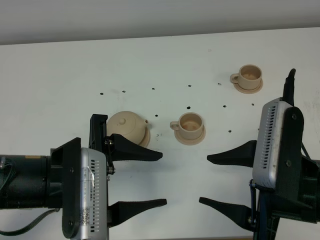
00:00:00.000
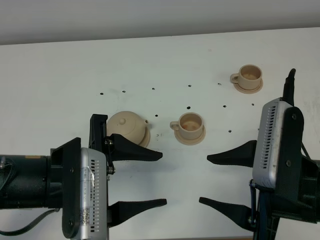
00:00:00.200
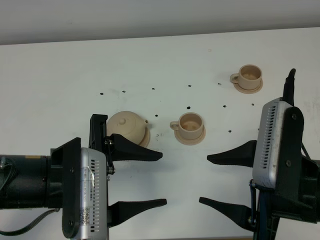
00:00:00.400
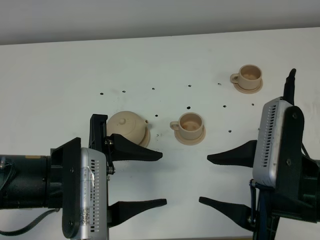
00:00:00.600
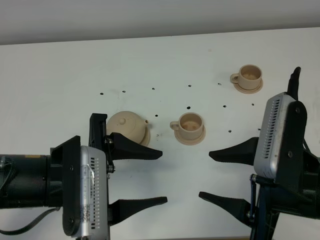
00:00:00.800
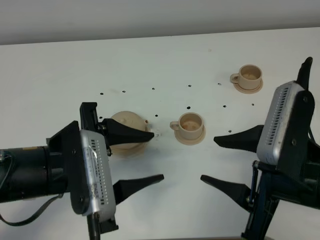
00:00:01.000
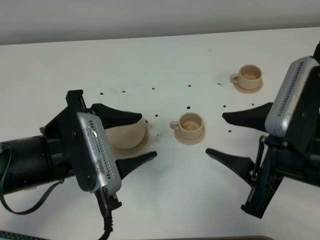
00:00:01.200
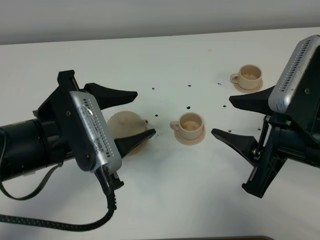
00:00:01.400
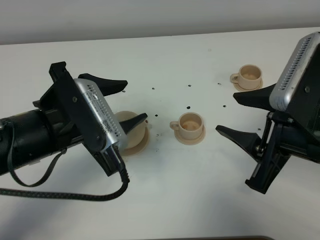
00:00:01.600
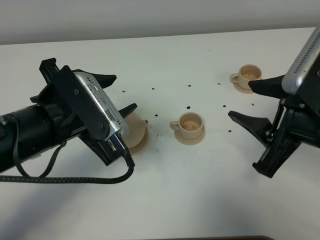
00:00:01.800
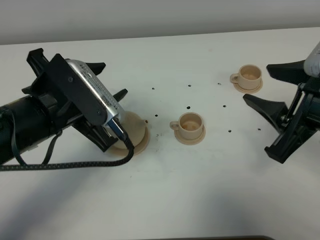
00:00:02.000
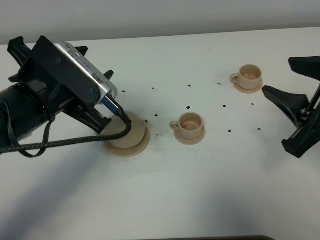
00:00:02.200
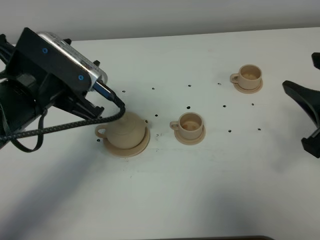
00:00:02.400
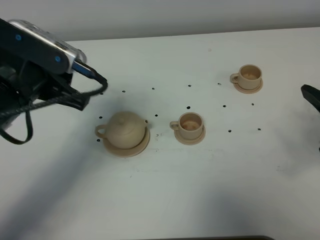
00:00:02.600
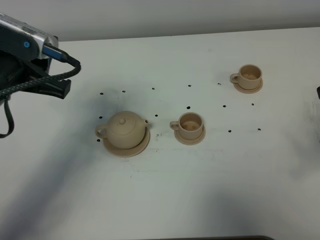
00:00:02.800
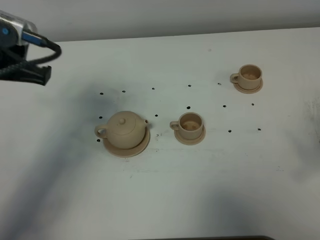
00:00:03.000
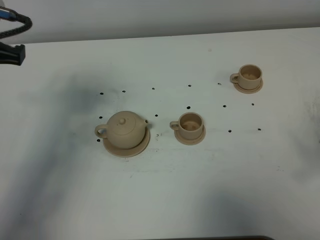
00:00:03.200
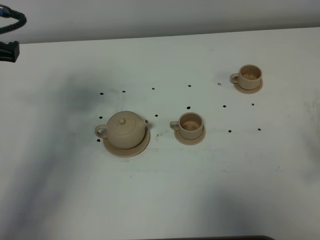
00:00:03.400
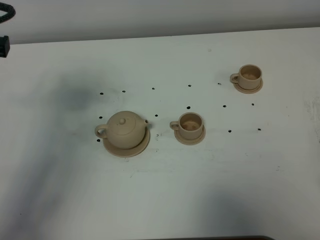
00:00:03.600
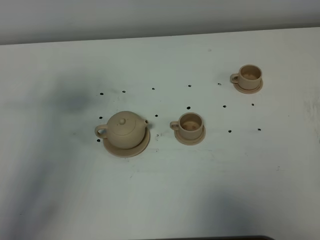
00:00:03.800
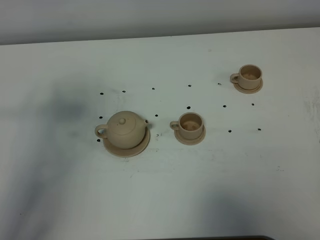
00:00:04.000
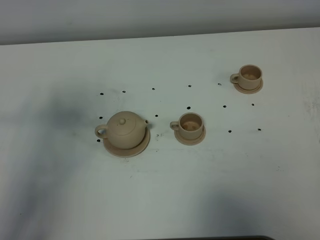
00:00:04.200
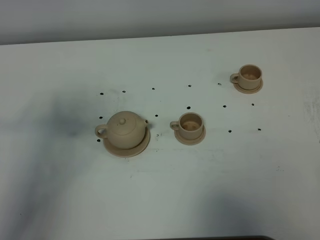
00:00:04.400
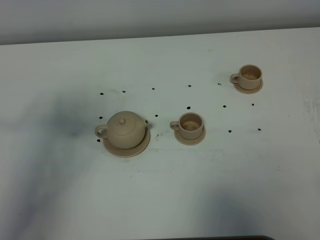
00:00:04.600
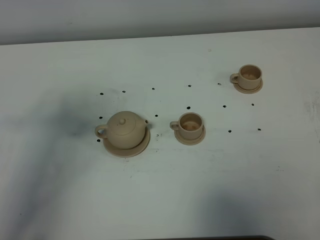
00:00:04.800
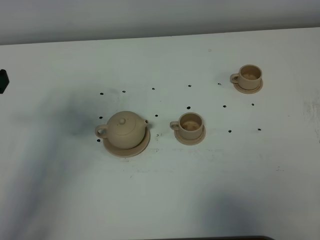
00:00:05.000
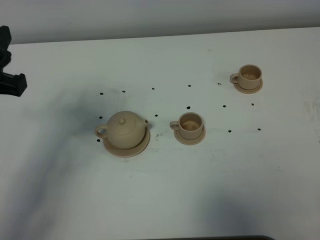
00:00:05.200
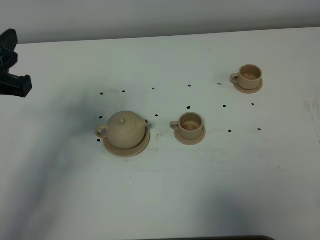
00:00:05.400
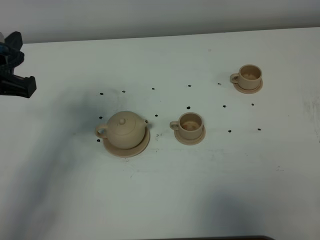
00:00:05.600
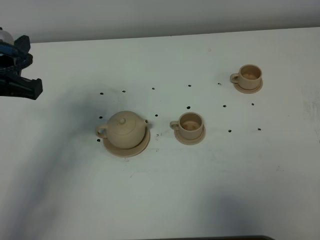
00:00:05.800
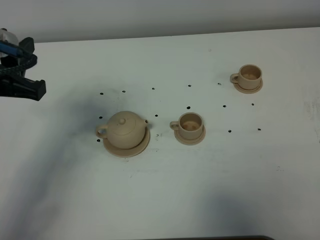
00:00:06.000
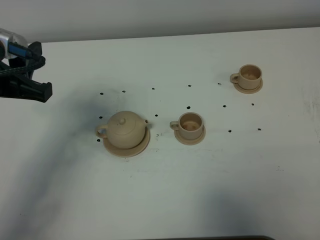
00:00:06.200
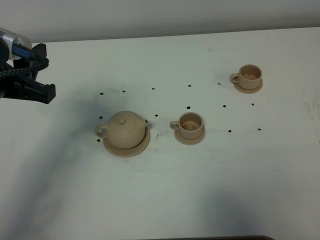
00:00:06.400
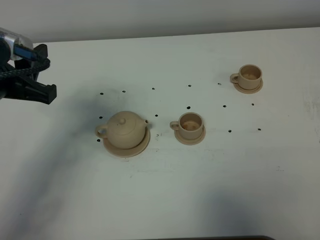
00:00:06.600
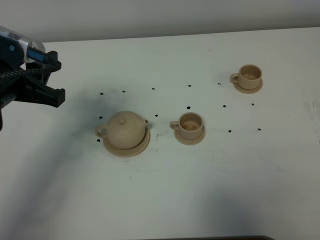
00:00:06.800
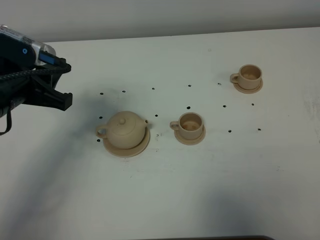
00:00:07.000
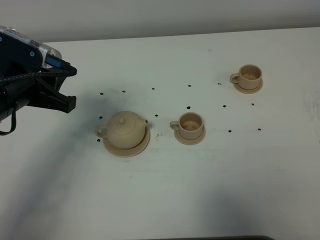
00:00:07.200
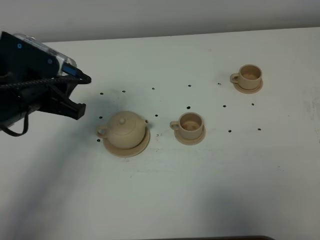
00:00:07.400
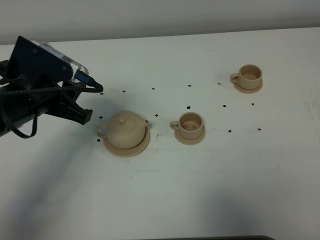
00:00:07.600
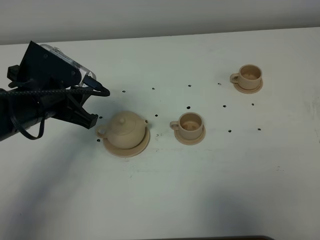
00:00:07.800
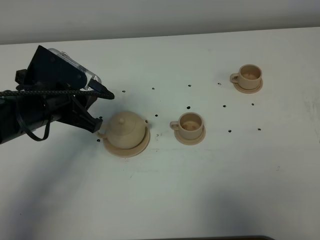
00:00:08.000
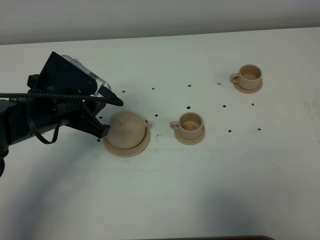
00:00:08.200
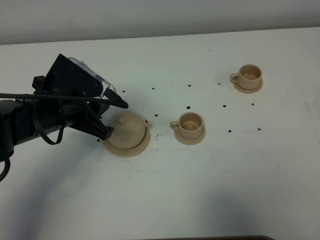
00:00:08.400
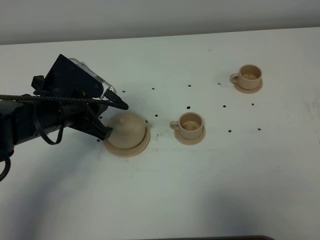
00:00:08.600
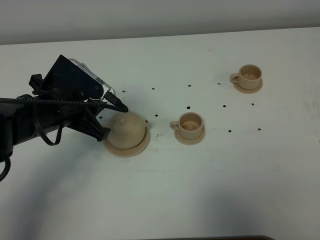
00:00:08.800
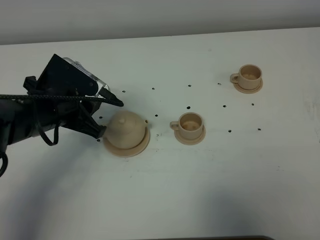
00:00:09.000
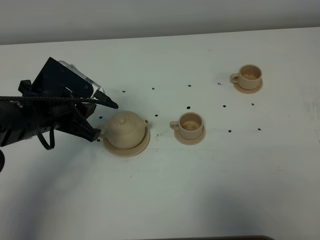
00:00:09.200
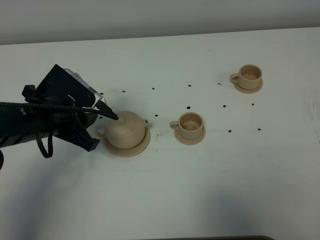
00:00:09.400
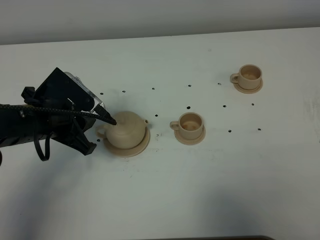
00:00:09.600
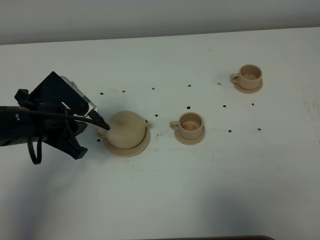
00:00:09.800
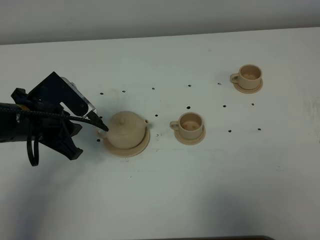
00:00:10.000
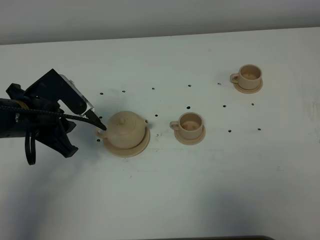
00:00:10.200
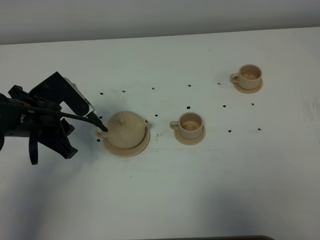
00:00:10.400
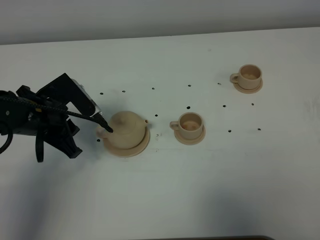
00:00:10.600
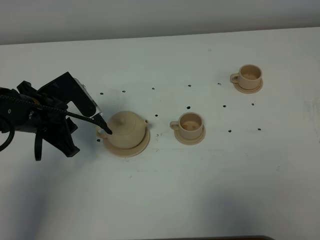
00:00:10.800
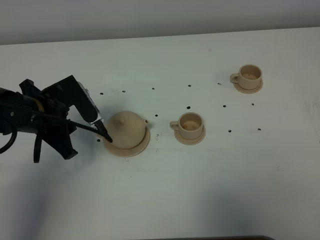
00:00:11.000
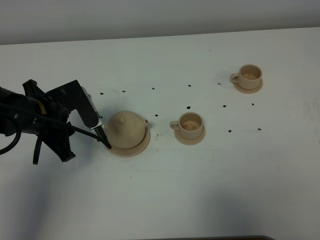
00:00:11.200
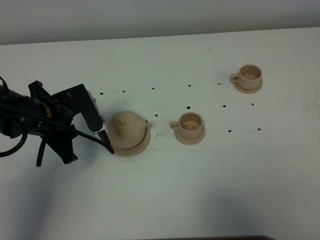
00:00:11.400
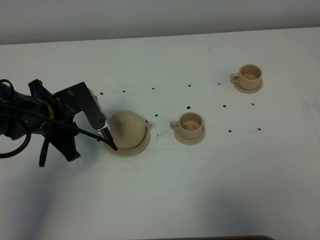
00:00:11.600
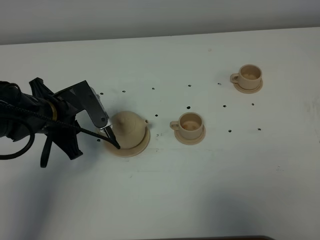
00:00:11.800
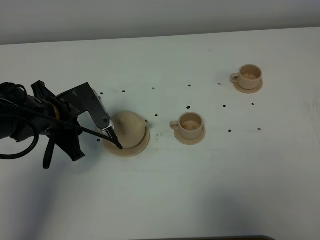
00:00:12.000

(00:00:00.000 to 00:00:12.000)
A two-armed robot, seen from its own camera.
Task of the whole recording: grasp the brown teapot and pour the tea into the two brown teacups one by one, put the brown teapot back in its original place.
00:00:00.000 - 00:00:01.600: The left gripper moves forward, some 5 cm. Meanwhile the right gripper moves some 5 cm.
00:00:01.600 - 00:00:03.000: The left gripper moves to the left and upward, approximately 10 cm, while the right gripper moves to the right, about 10 cm.
00:00:03.000 - 00:00:04.400: The left gripper goes some 5 cm backward.
00:00:04.400 - 00:00:06.000: The left gripper travels forward by some 5 cm.
00:00:06.000 - 00:00:07.600: The left gripper travels downward by approximately 5 cm.
00:00:07.600 - 00:00:09.000: There are only small adjustments of the grippers.
00:00:10.400 - 00:00:12.000: The grippers move only a little.

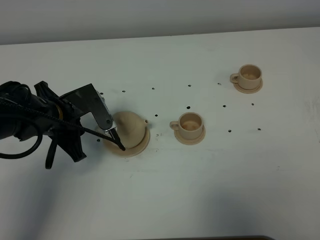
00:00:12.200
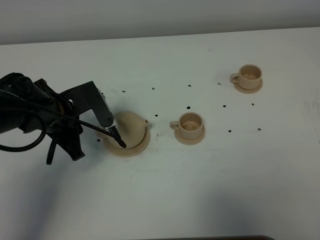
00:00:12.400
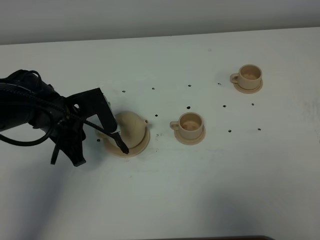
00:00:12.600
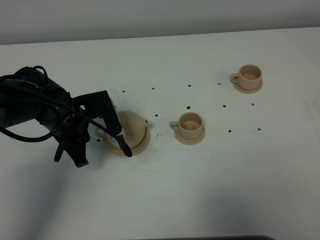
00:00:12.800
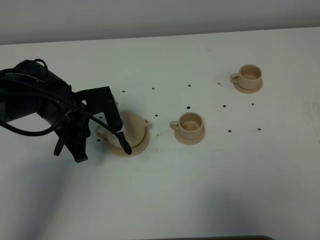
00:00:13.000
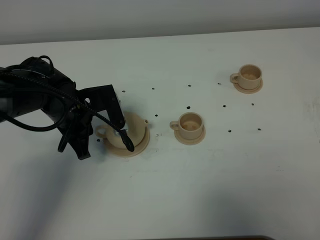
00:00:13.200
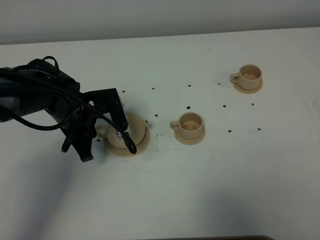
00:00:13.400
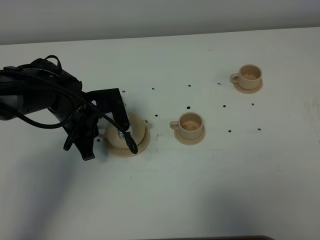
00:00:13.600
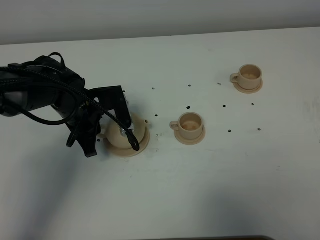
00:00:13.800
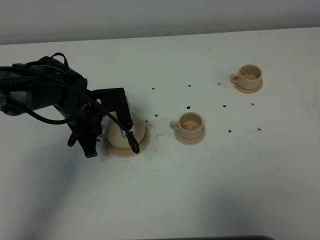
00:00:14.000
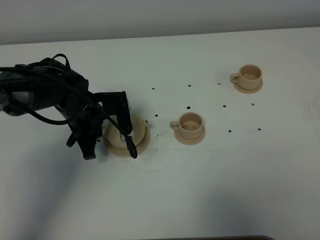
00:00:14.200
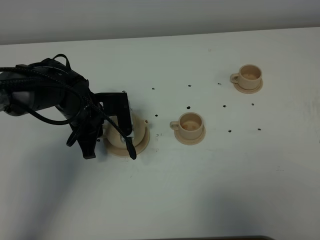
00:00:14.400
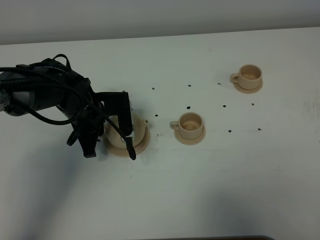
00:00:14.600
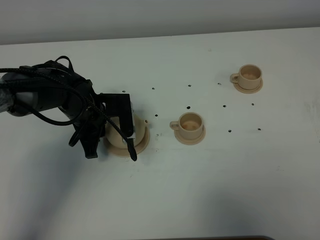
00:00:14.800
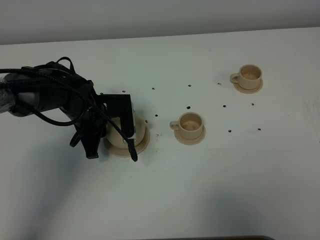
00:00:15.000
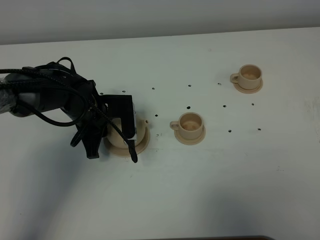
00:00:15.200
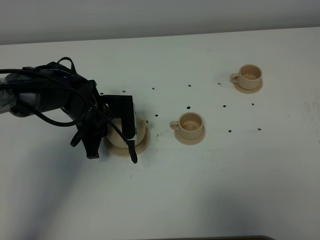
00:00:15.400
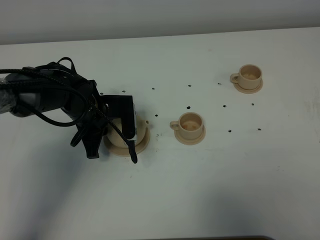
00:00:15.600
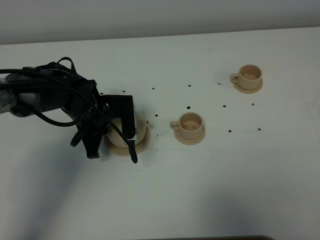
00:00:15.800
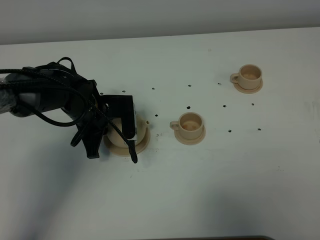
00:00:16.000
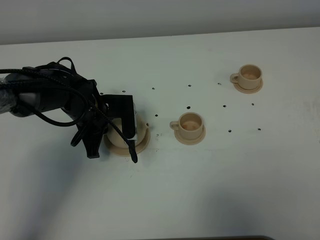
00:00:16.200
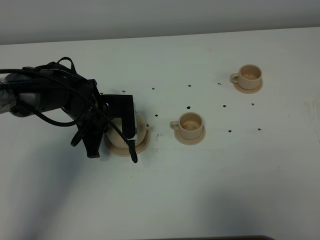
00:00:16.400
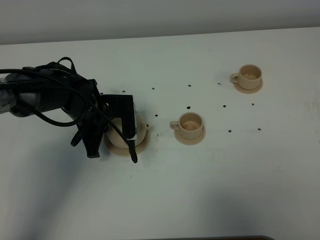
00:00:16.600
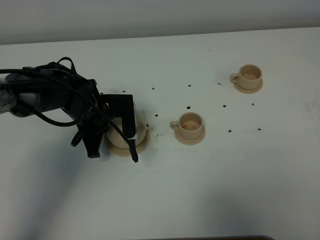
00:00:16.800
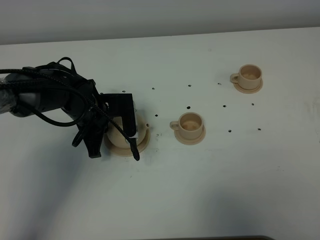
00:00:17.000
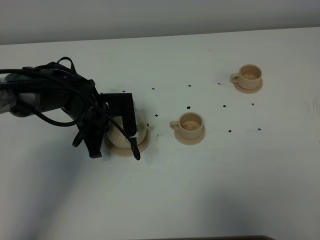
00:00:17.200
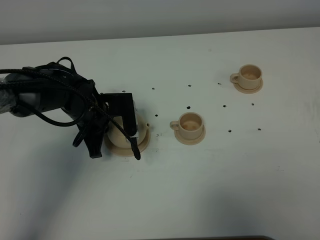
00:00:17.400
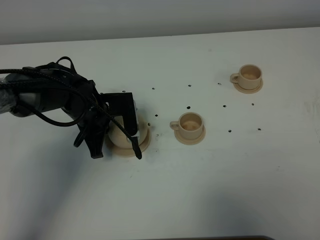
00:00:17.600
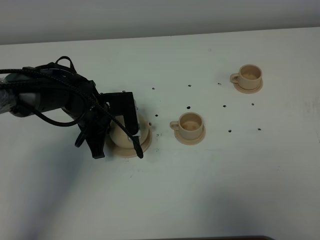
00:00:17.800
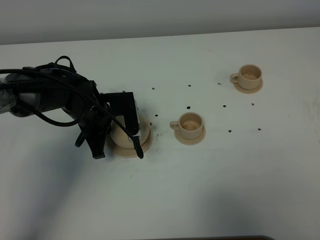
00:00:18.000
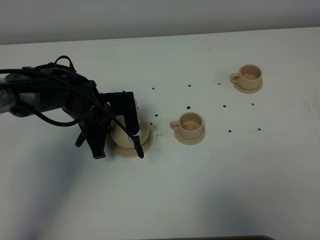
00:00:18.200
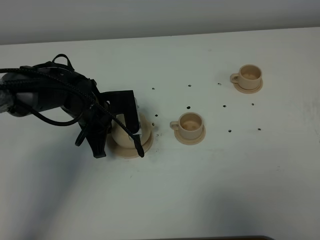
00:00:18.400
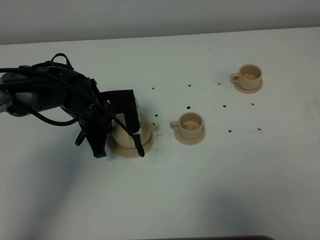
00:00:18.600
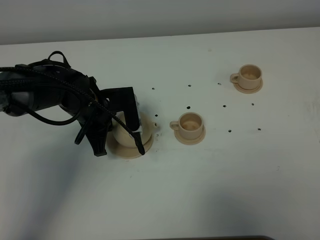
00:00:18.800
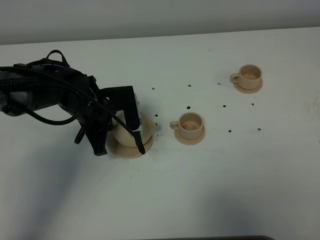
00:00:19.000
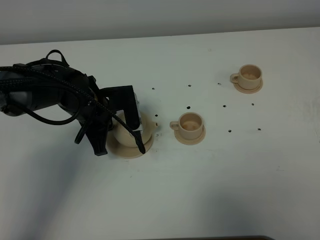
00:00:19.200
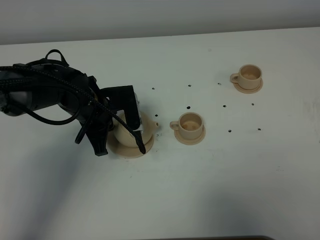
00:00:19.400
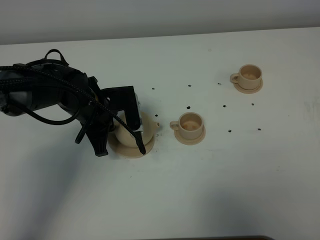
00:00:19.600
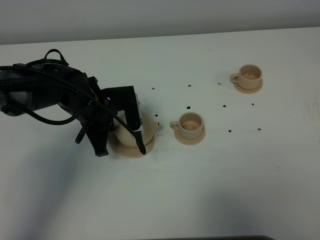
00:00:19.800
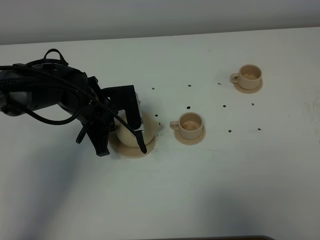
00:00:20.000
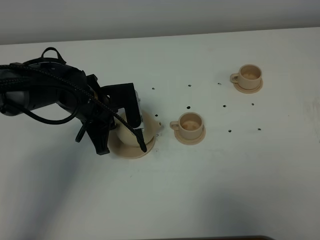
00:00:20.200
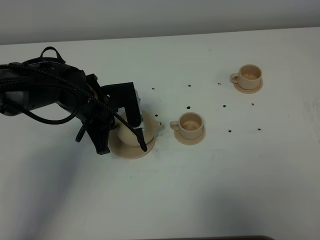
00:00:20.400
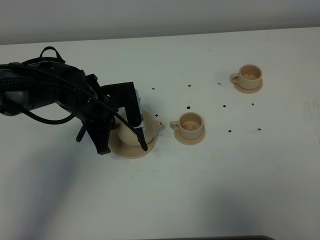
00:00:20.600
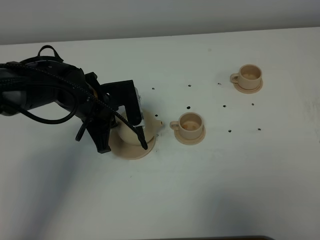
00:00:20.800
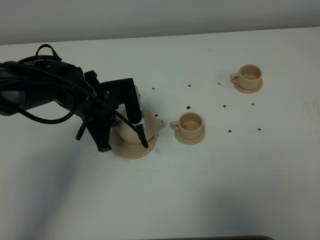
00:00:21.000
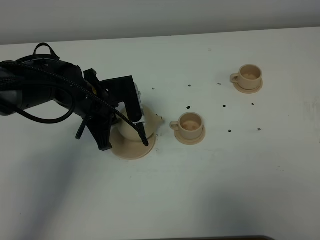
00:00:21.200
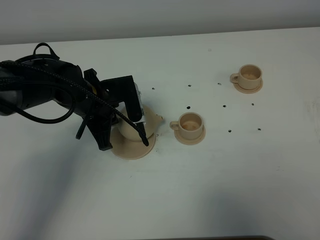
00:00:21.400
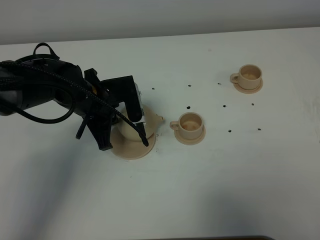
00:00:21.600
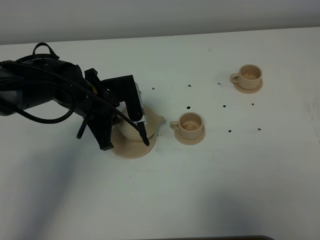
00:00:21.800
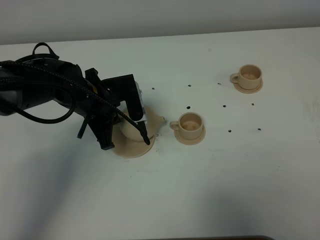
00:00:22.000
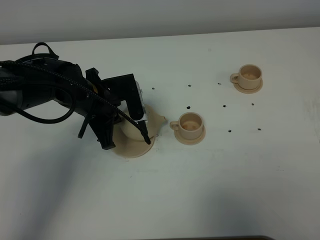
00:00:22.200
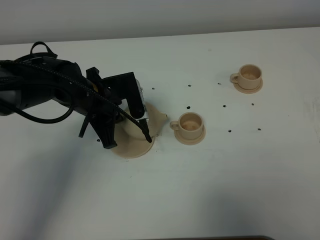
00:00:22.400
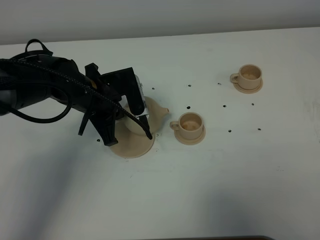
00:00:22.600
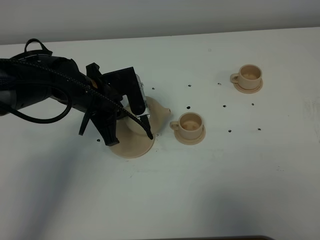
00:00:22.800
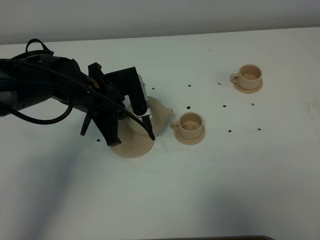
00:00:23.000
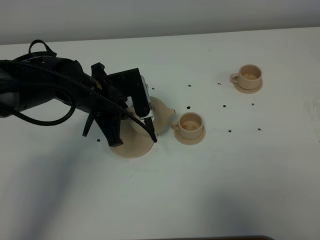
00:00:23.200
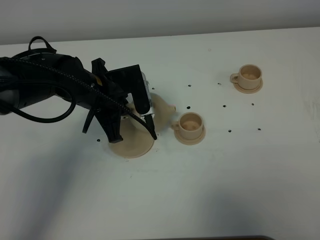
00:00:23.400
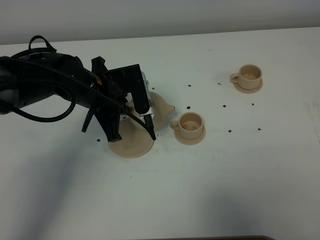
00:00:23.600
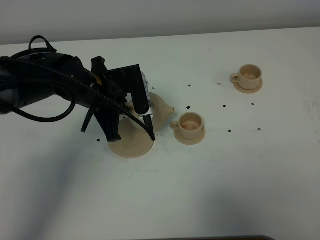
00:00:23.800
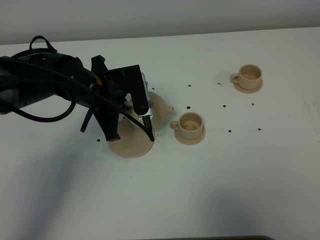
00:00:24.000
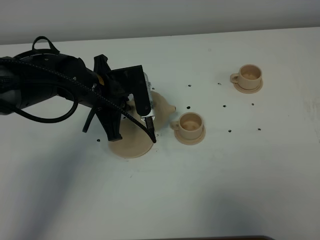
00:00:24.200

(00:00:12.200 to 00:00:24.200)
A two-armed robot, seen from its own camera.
Task of the whole recording: grasp the brown teapot and pour the tea into the two brown teacups one by one, put the brown teapot back in its original place.
Step, 00:00:12.200 - 00:00:20.800: Pick up the teapot with the left gripper.
00:00:12.200 - 00:00:13.800: The left gripper moves about 5 cm.
00:00:13.800 - 00:00:15.200: The grippers make only small movements.
00:00:16.600 - 00:00:22.600: The grippers make only small movements.
00:00:22.600 - 00:00:24.200: There are only small adjustments of the grippers.
